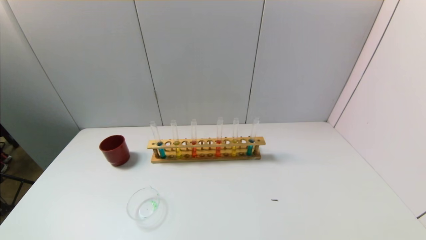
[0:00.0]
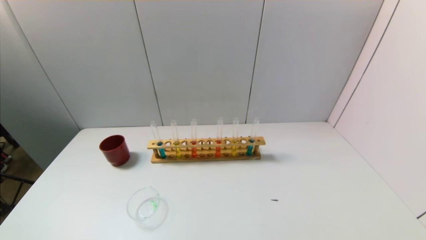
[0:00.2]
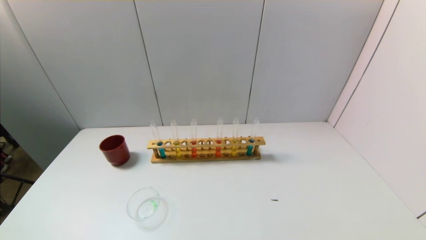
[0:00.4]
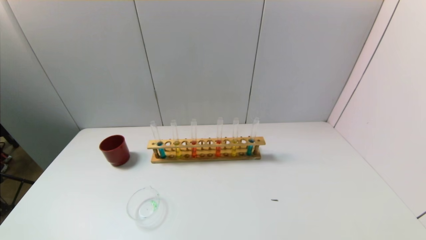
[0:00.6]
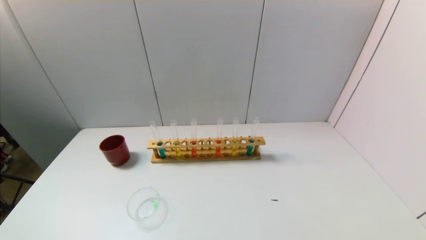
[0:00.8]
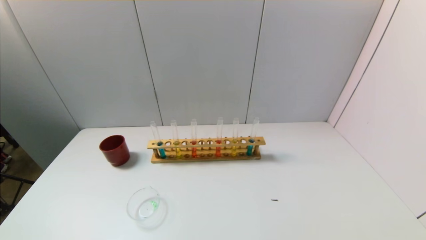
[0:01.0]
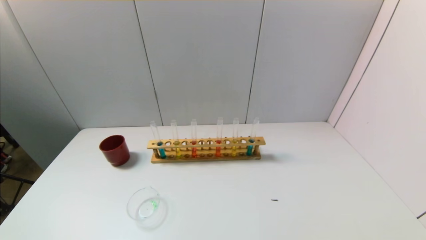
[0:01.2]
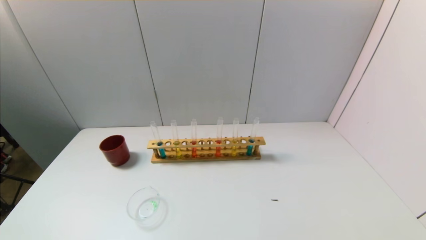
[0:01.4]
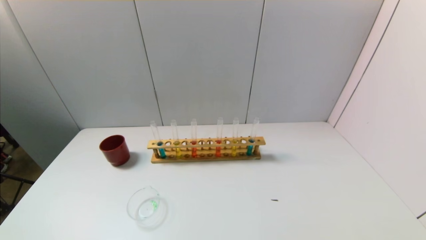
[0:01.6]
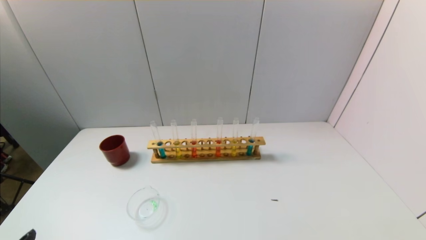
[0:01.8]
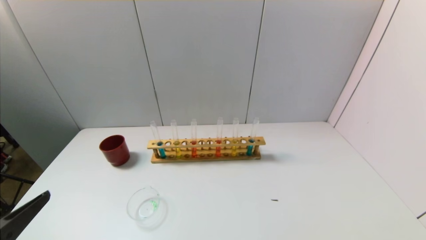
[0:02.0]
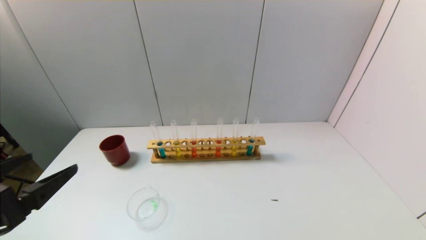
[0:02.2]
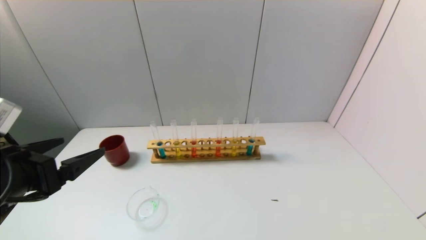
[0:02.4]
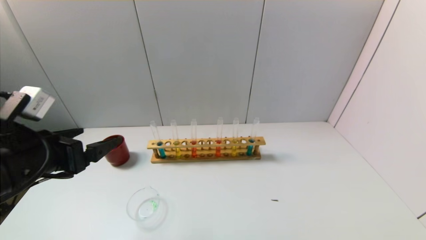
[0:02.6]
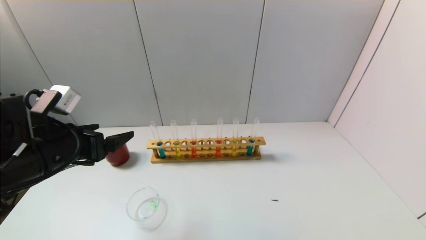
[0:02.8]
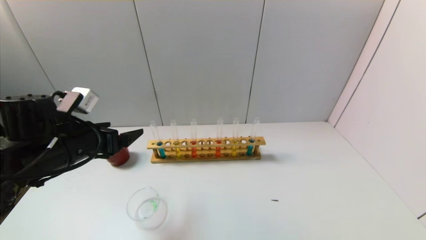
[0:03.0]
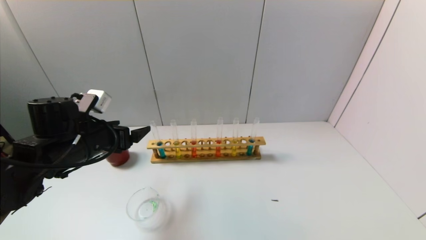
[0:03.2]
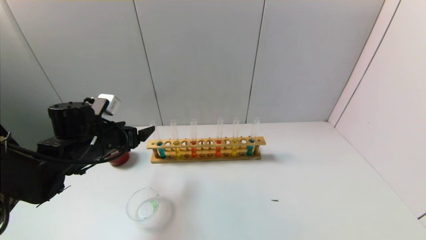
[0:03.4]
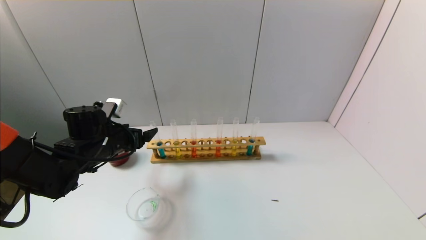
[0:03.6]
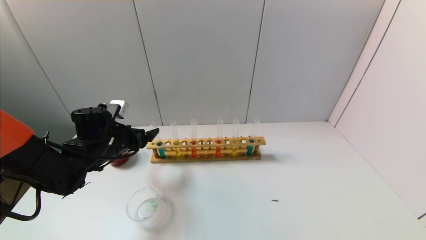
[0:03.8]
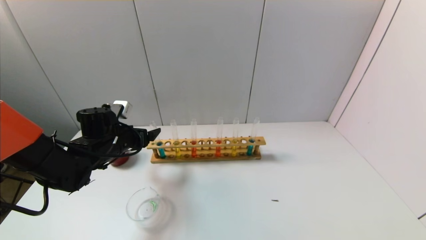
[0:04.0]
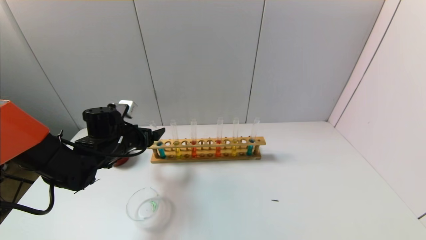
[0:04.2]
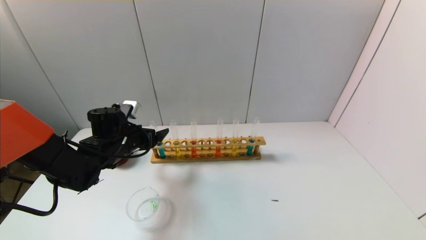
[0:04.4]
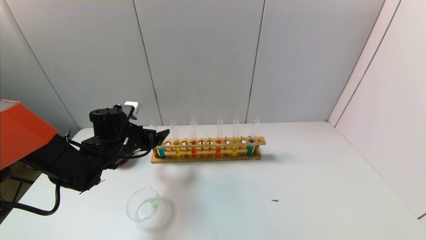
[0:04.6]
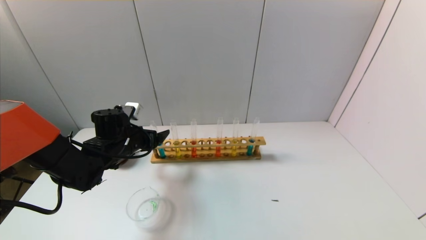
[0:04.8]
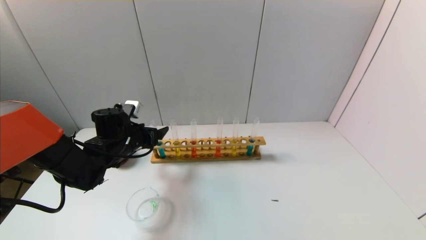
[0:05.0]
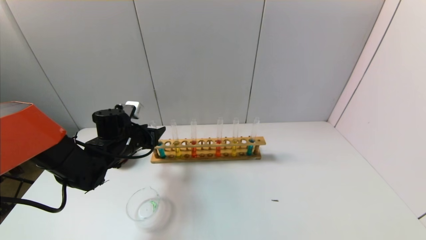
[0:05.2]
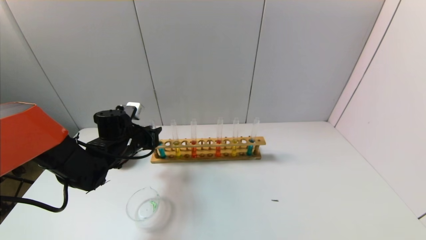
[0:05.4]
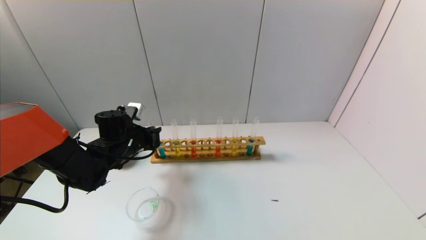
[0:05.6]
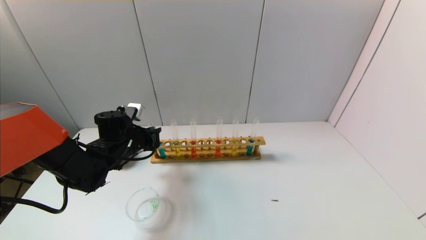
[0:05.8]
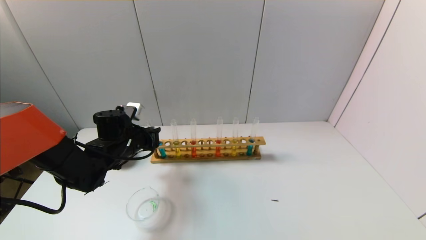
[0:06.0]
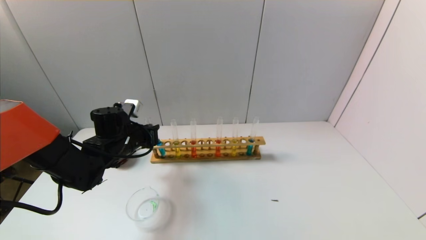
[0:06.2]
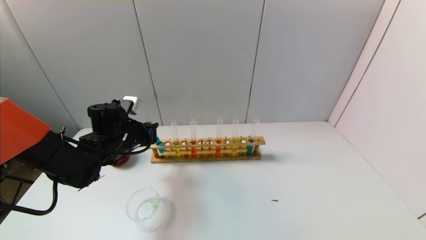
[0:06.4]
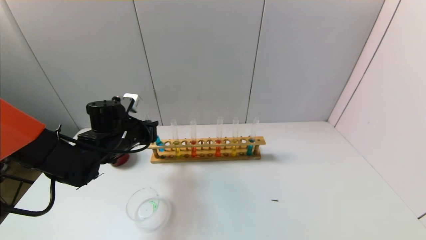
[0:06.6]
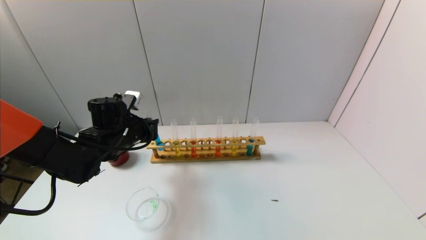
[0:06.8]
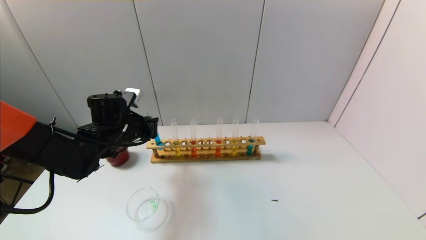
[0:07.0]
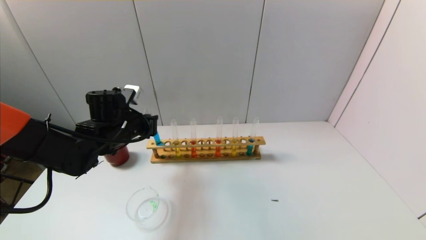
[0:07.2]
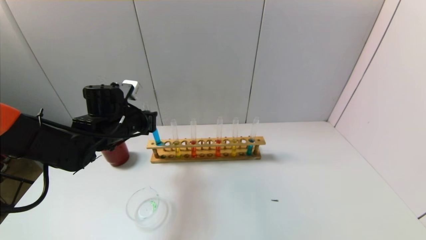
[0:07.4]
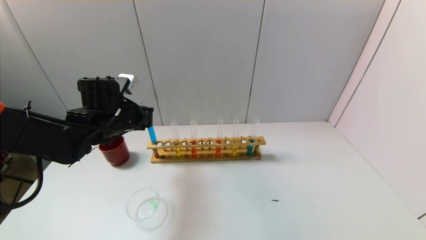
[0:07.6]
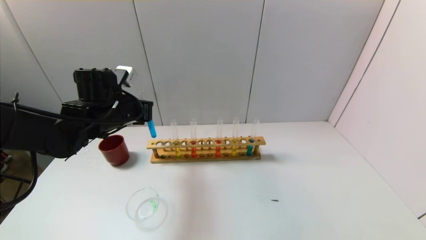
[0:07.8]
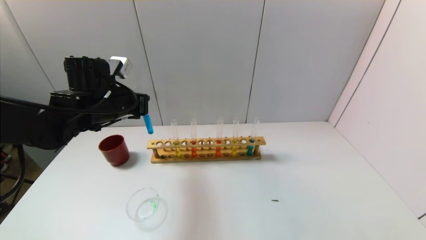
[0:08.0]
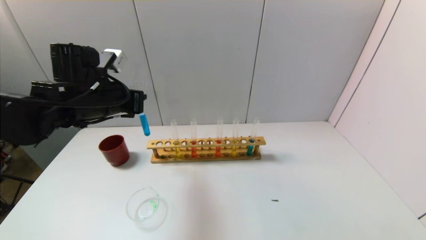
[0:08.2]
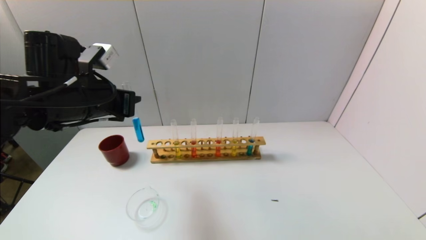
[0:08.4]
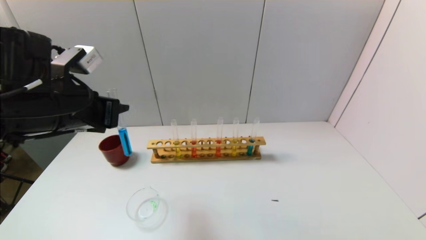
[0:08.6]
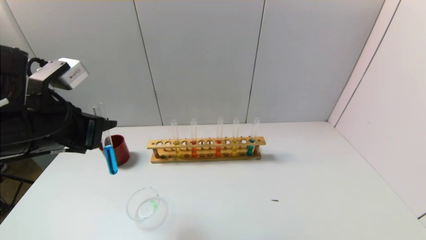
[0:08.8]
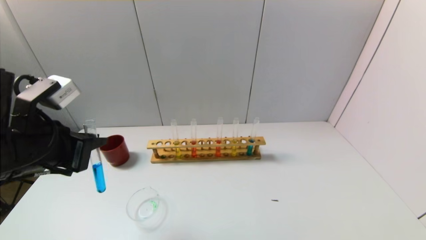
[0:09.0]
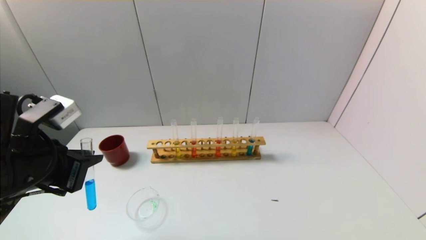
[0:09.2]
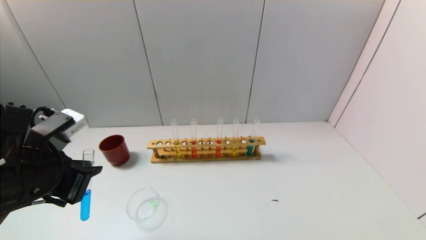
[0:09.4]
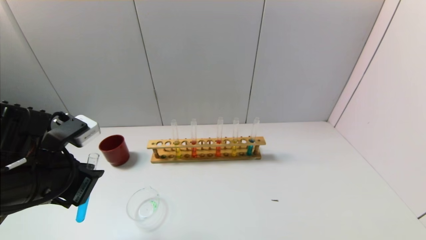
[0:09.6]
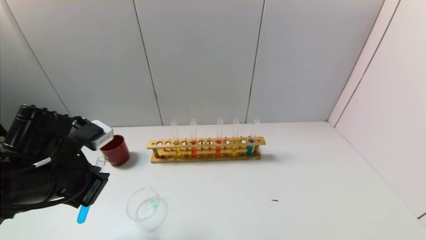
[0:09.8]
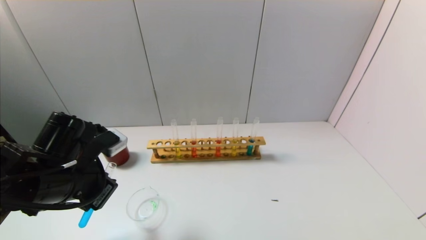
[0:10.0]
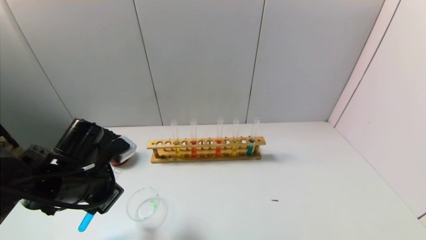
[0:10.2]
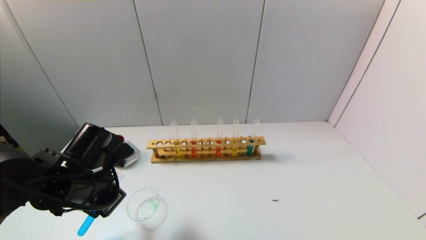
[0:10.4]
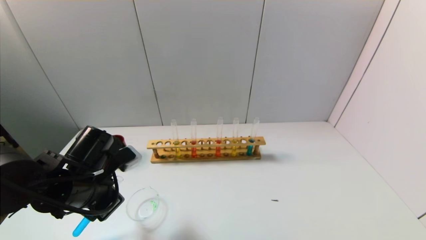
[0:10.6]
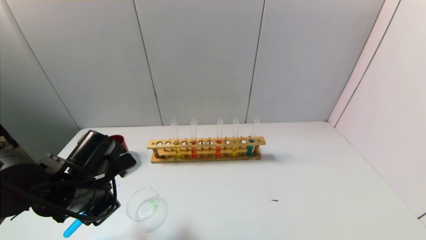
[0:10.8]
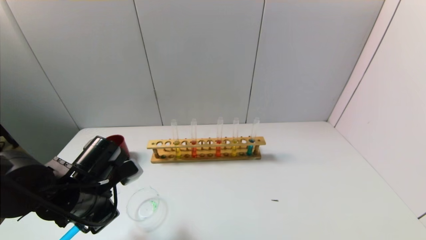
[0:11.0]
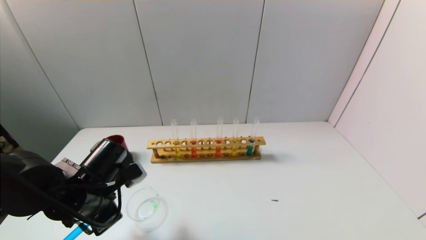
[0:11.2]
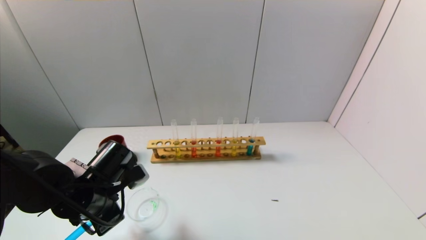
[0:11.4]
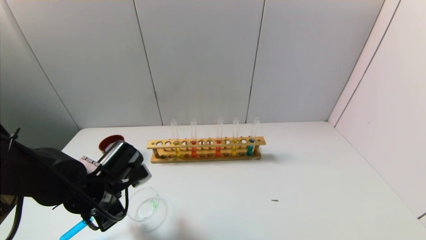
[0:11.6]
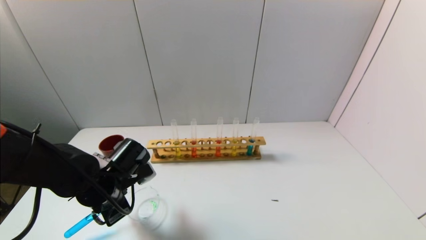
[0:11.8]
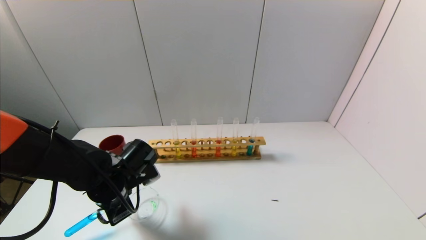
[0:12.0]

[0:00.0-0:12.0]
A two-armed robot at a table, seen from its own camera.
Task of the whole recording: pick up the test tube with yellow pigment and the test tube with blue pigment by grippers and pour them into the beaker.
Step, 0:00.0 to 0:06.0: Grasp the blue reagent with the left gripper.
0:01.6 to 0:03.0: The left gripper is displaced forward by about 25 cm.
0:03.0 to 0:04.4: The left gripper travels forward and downward by some 10 cm.
0:04.4 to 0:06.0: The left gripper closes up.
0:06.0 to 0:07.6: The left gripper moves upward, about 10 cm.
0:07.6 to 0:09.0: The left gripper heads backward, covering some 15 cm.
0:09.0 to 0:10.4: The left gripper moves downward, roughly 10 cm.
0:10.4 to 0:12.0: The left gripper heads downward, covering approximately 5 cm.

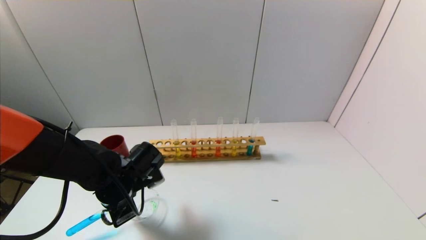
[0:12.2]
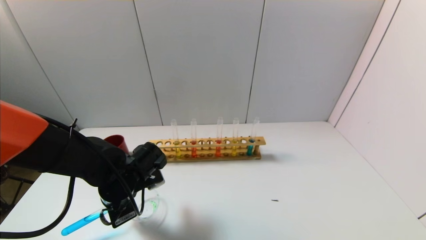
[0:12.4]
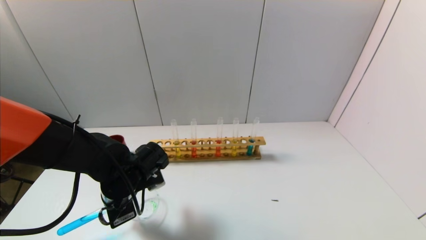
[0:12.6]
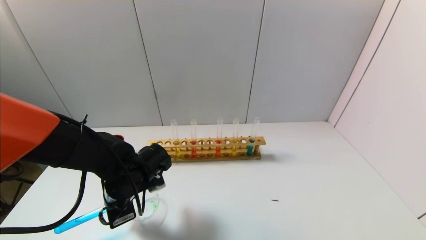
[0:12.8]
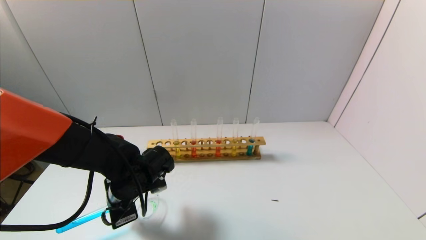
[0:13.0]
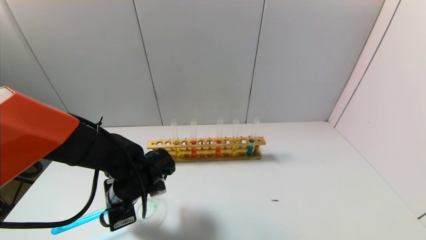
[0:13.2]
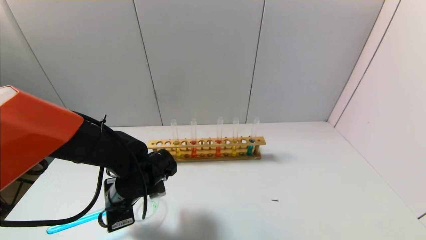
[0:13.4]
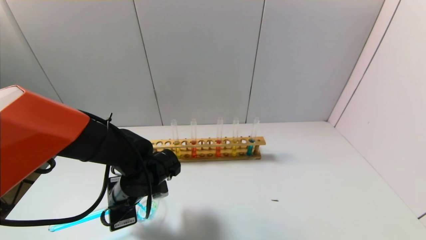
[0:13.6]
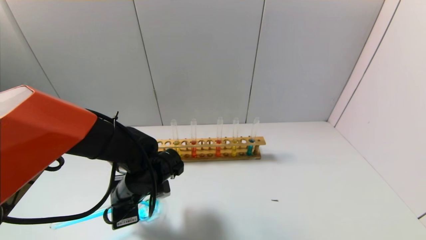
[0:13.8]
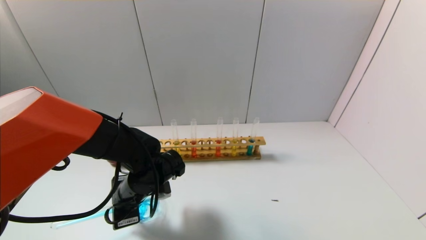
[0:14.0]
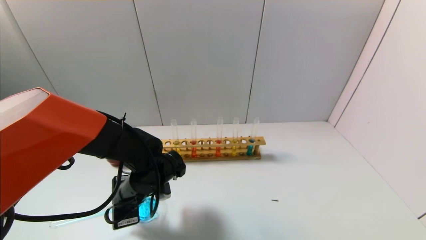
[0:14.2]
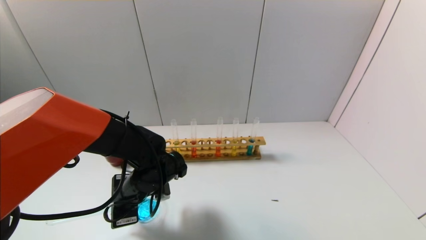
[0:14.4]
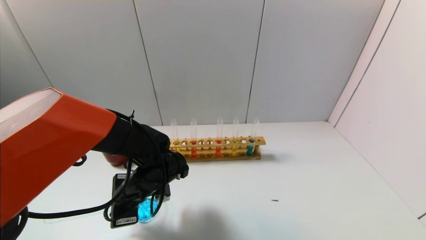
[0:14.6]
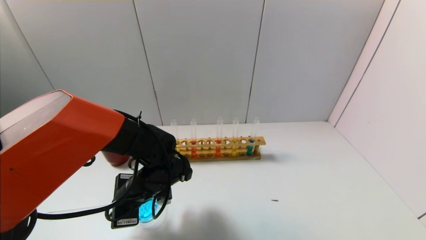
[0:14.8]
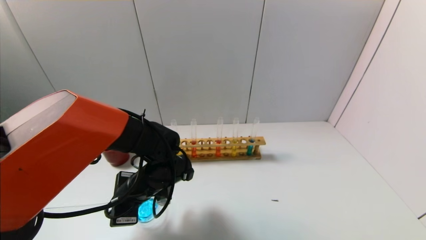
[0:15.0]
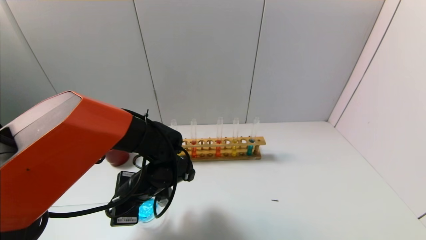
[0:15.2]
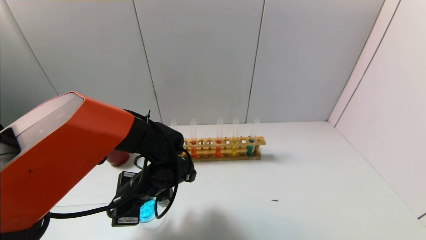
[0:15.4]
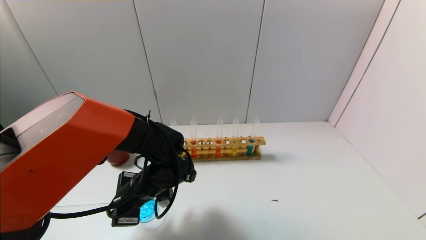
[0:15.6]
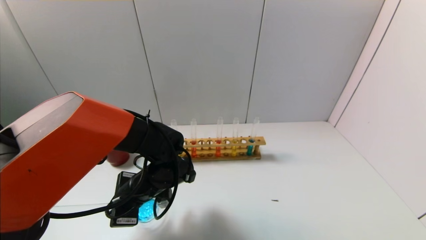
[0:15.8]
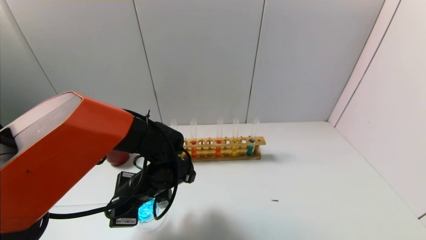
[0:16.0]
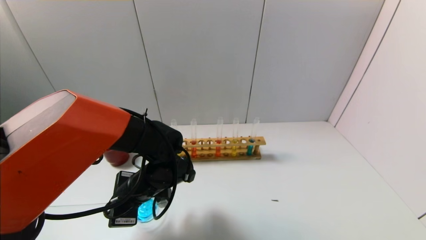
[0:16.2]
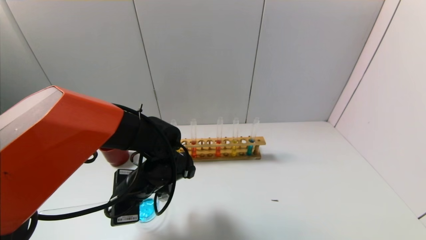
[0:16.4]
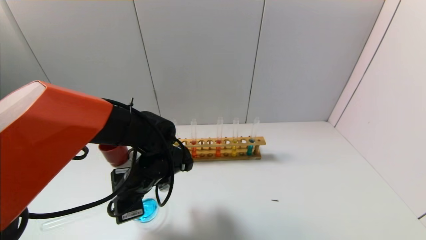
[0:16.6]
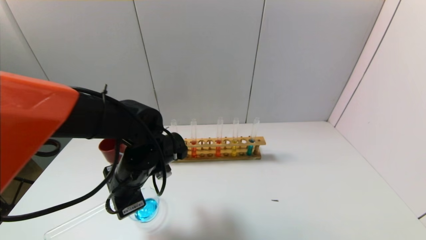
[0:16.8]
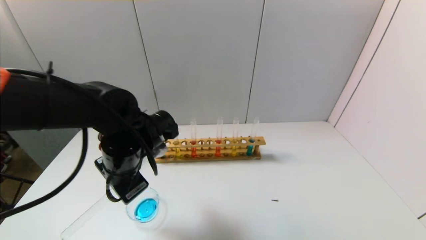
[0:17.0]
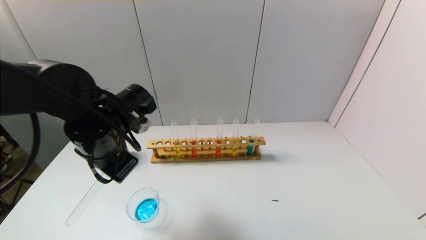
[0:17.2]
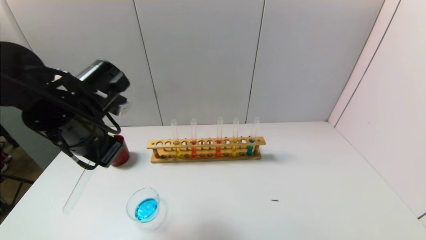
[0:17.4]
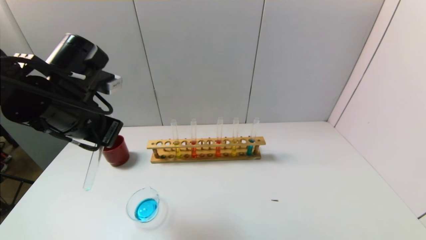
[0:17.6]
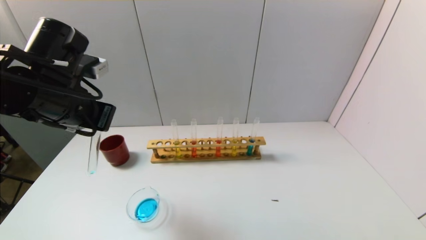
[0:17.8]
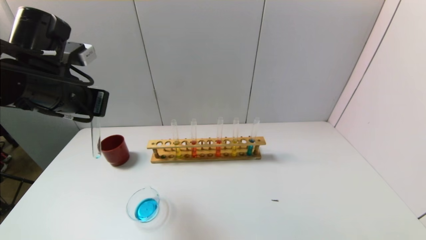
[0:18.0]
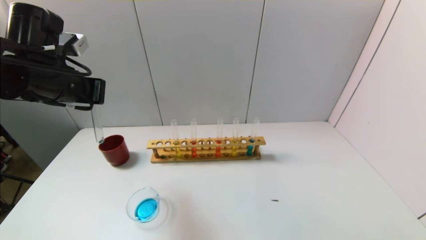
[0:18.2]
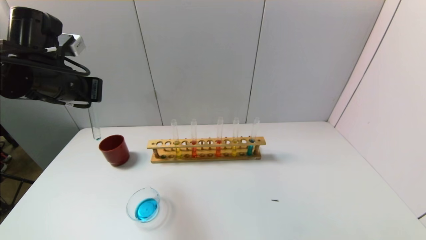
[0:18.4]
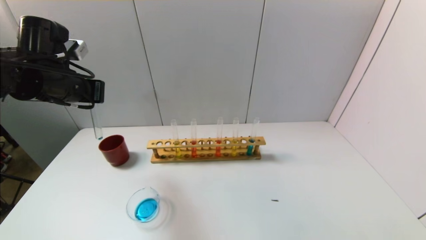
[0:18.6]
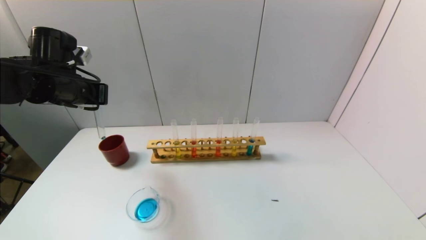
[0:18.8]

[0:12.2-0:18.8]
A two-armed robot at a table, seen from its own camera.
Task of the whole recording: pick up the test tube with yellow pigment and the test tube with blue pigment by grippers and pour them into the beaker.
Step, 0:12.2 to 0:16.0: Pour the blue reagent into the graduated cylinder with the left gripper.
0:13.8 to 0:15.4: The grippers move only a little.
0:15.4 to 0:17.2: The left gripper goes roughly 15 cm upward and to the left.
0:17.2 to 0:18.8: The left gripper goes some 15 cm to the left and forward.
